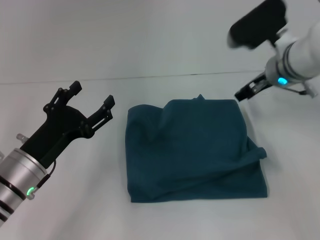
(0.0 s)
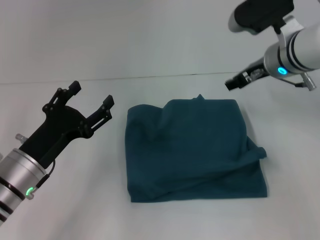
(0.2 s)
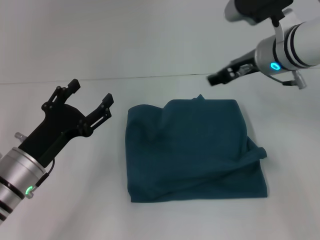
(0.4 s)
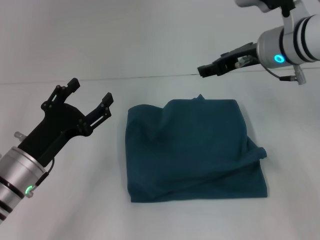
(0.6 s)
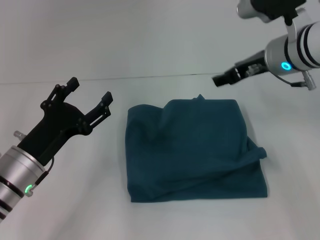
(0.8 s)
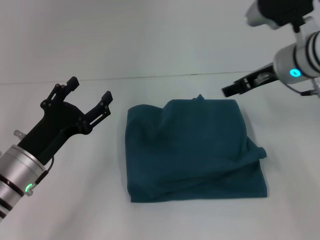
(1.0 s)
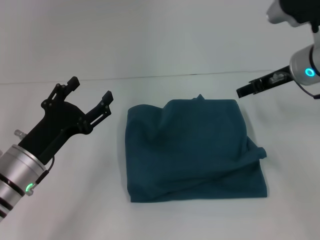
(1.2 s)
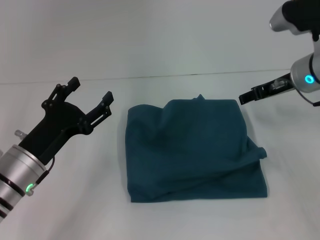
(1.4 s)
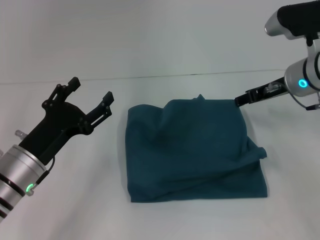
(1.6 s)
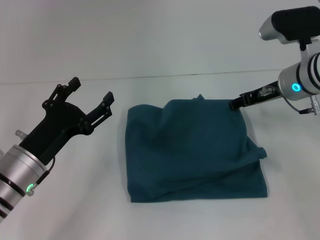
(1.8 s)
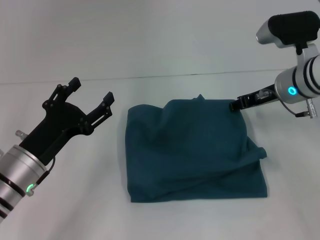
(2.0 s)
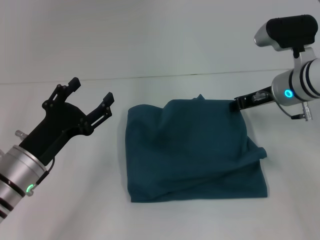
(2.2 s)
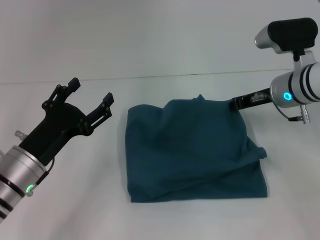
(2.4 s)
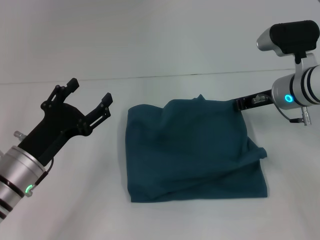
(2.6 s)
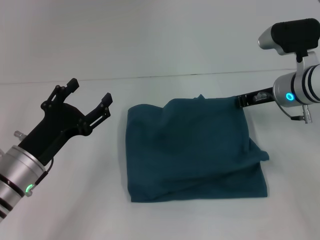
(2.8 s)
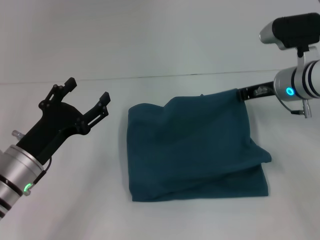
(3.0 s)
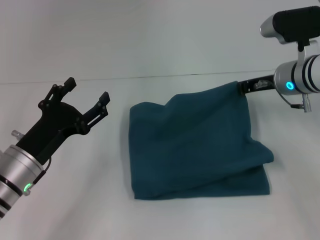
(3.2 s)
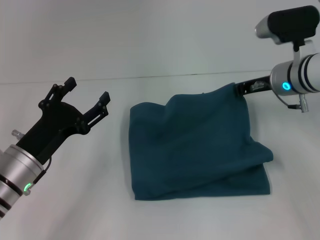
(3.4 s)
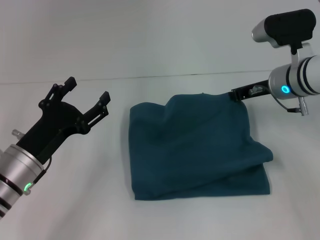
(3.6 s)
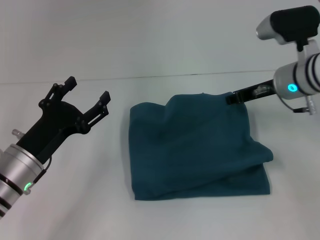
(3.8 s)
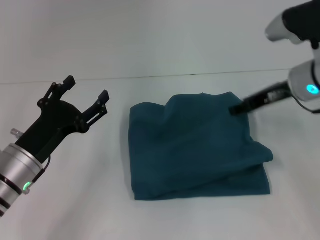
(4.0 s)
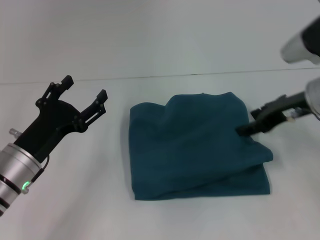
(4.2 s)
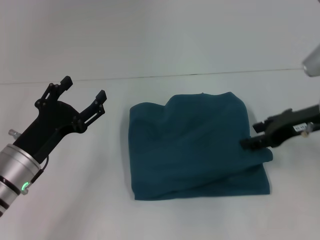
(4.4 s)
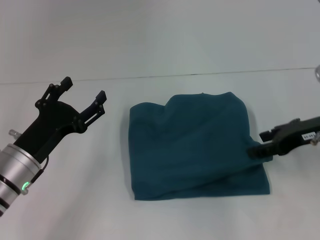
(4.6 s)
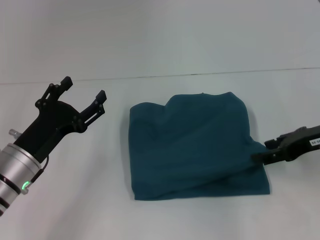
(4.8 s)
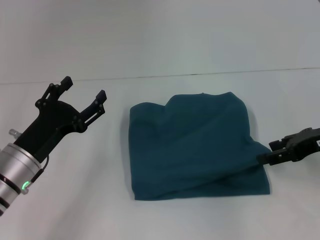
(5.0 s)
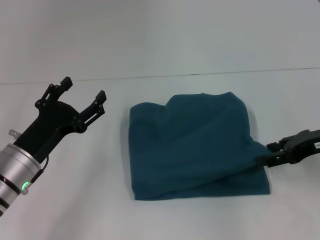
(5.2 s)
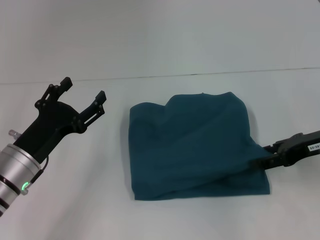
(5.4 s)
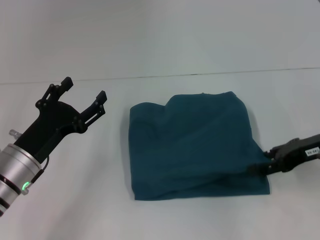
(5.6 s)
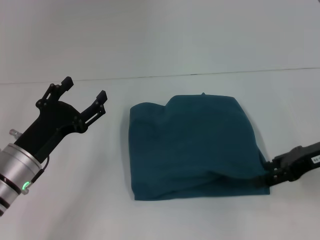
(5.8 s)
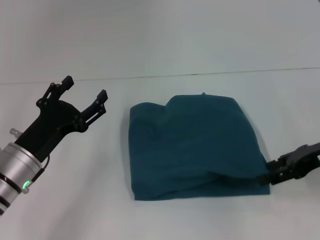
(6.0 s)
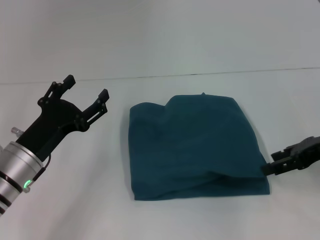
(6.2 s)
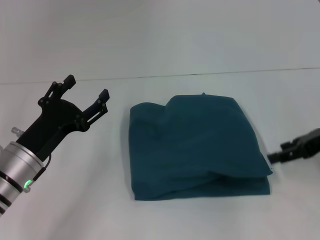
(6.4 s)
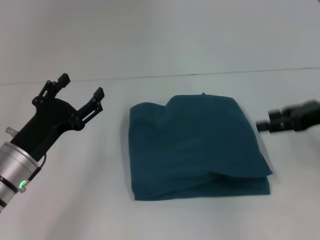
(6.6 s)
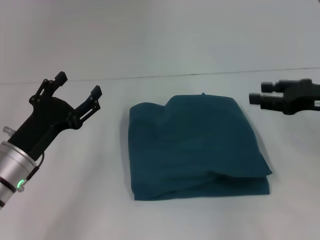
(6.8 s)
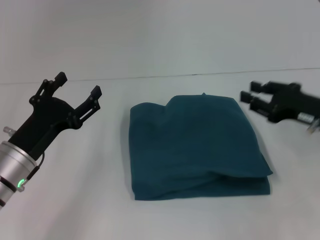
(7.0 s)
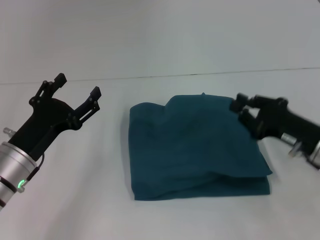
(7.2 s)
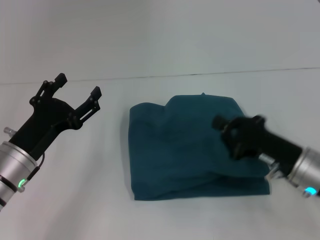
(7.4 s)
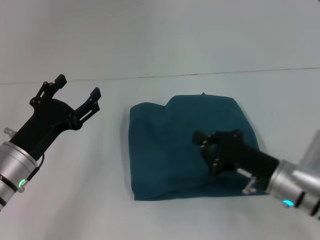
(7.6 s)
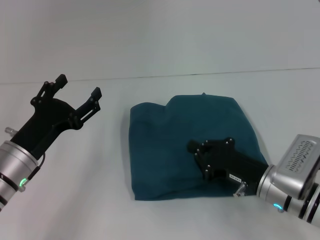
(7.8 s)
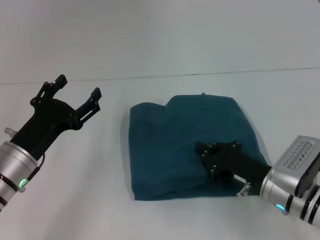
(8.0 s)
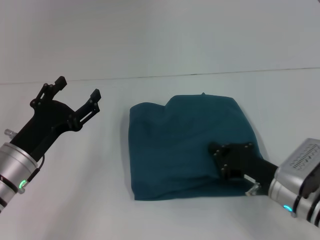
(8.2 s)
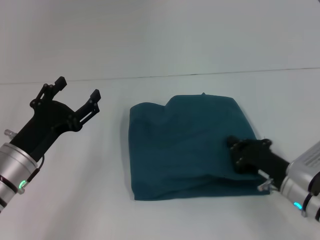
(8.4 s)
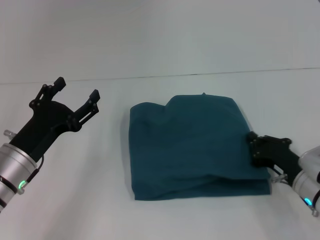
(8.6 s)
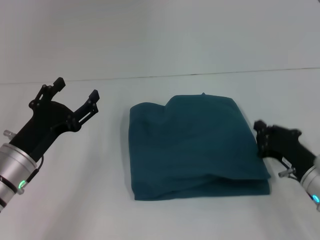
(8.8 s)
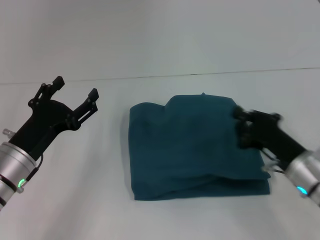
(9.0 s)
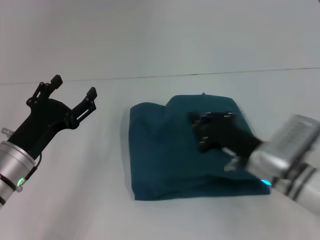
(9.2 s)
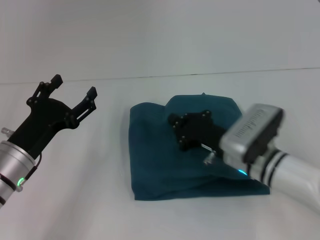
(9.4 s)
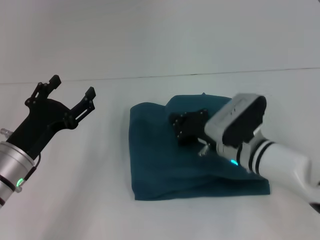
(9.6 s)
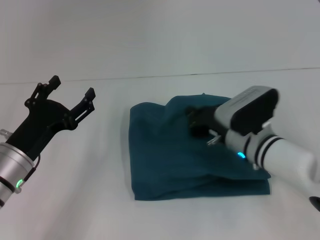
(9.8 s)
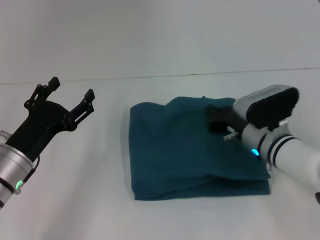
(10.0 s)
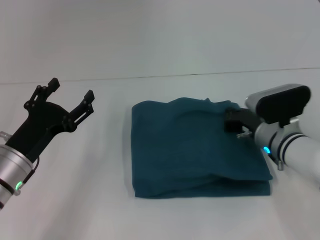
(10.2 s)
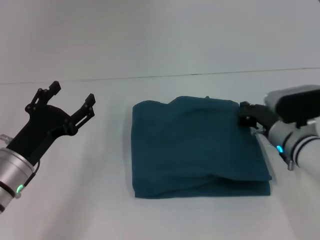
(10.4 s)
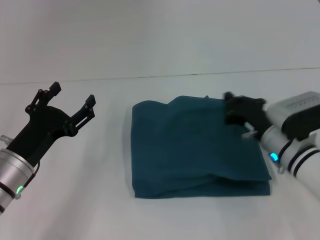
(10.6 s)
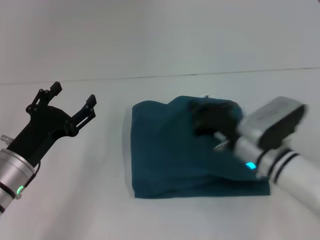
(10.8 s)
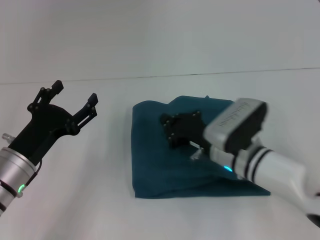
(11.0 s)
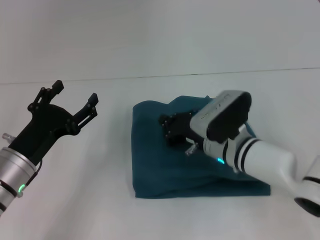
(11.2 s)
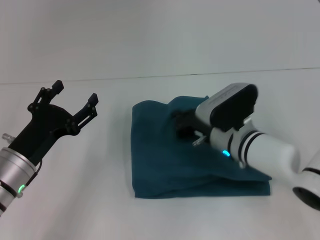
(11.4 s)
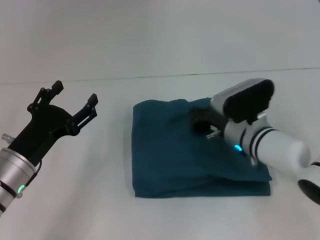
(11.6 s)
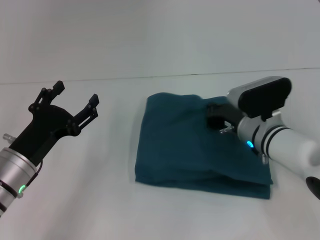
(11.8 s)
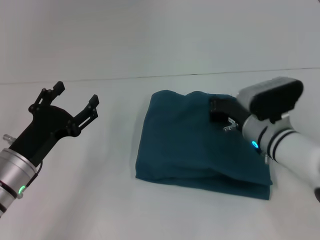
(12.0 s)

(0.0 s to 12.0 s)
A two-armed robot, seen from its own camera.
1.6 s - 3.0 s: The right gripper closes up.
3.0 s - 4.4 s: The right gripper moves backward, some 10 cm, and opens up.
4.4 s - 6.0 s: The grippers move only a little.
6.0 s - 7.6 s: The right gripper heads downward, to the left and backward, covering about 15 cm, and closes.
9.0 s - 10.4 s: The right gripper heads forward, covering about 10 cm, and travels to the left and back again, approximately 10 cm each way.

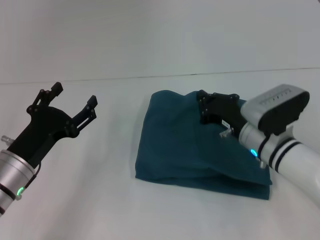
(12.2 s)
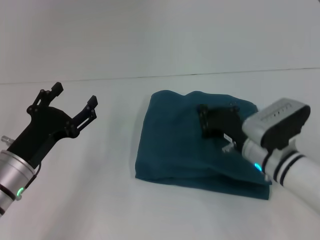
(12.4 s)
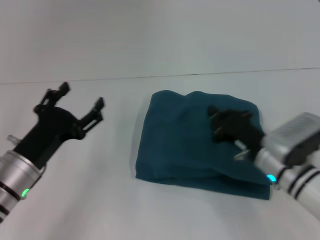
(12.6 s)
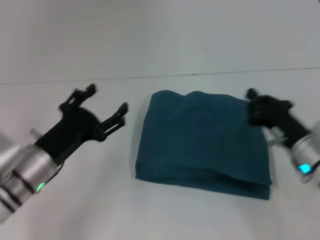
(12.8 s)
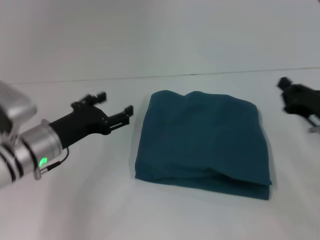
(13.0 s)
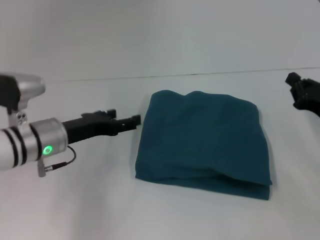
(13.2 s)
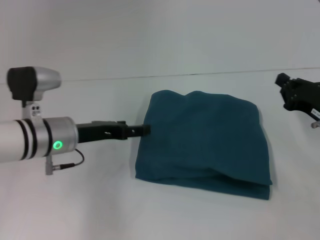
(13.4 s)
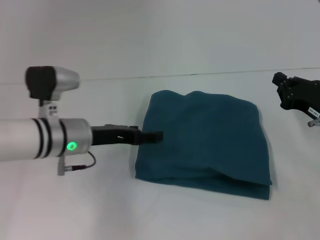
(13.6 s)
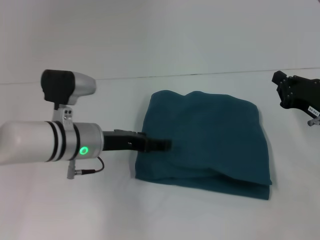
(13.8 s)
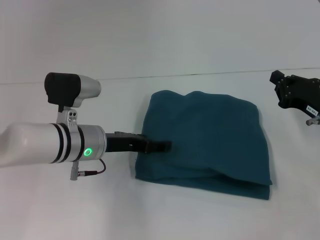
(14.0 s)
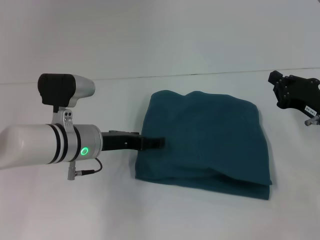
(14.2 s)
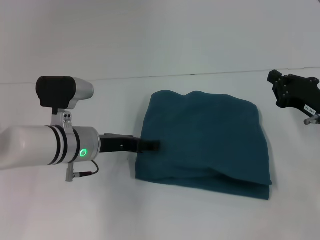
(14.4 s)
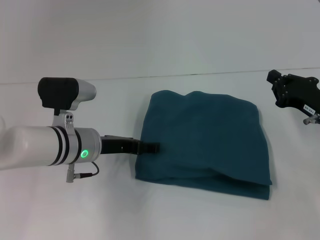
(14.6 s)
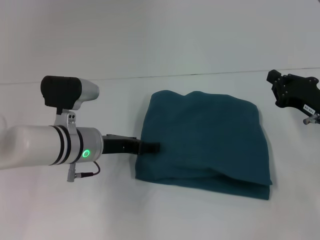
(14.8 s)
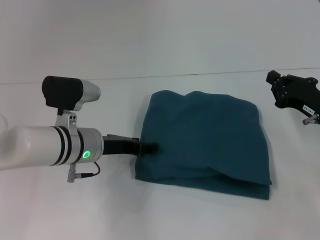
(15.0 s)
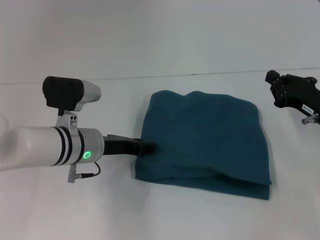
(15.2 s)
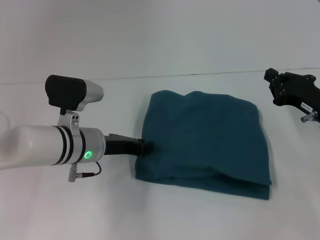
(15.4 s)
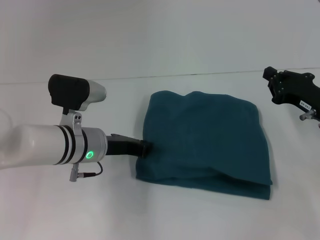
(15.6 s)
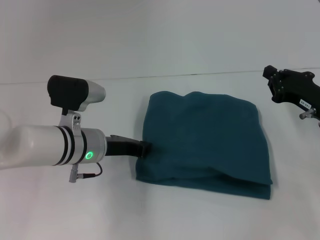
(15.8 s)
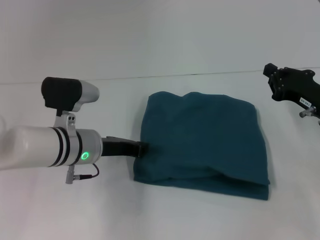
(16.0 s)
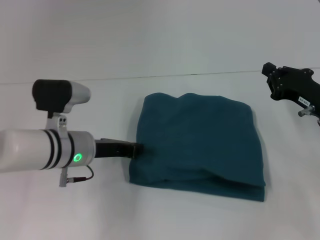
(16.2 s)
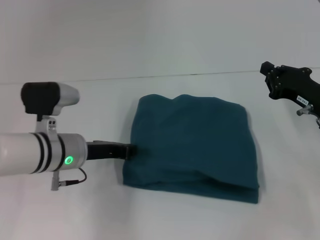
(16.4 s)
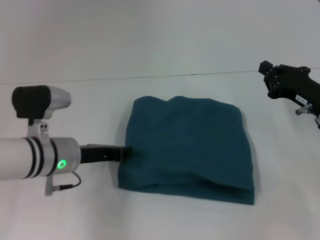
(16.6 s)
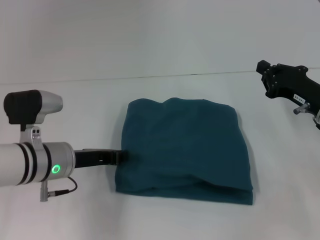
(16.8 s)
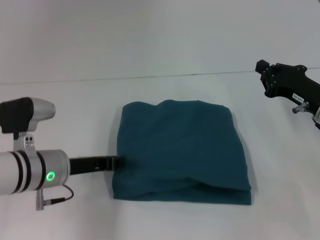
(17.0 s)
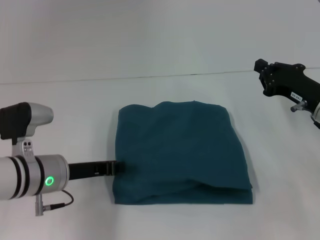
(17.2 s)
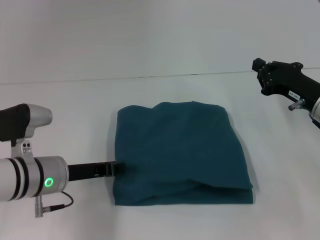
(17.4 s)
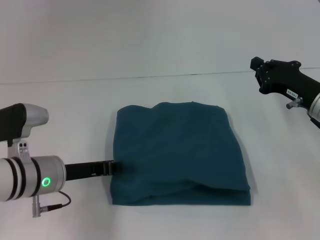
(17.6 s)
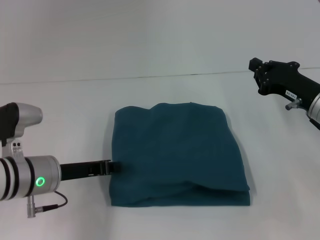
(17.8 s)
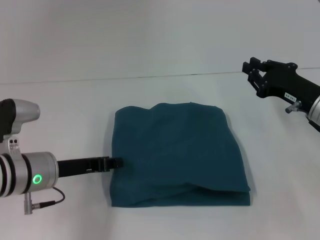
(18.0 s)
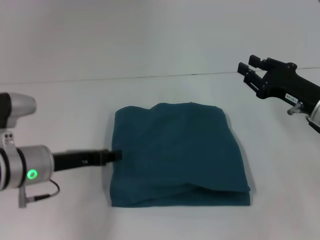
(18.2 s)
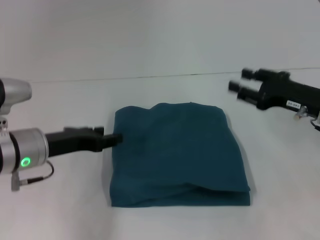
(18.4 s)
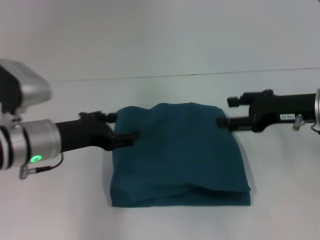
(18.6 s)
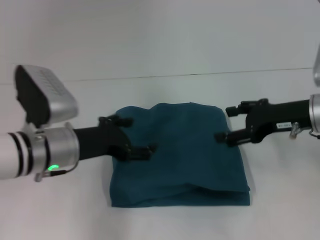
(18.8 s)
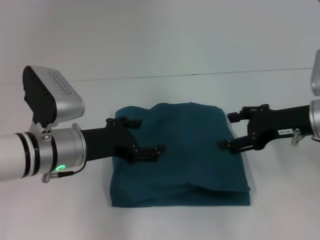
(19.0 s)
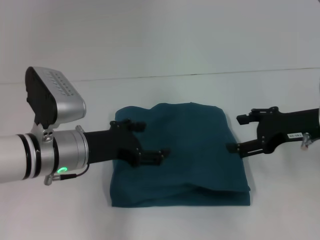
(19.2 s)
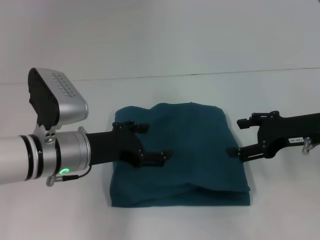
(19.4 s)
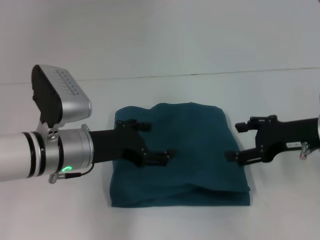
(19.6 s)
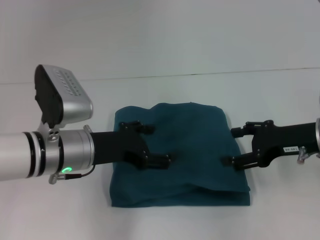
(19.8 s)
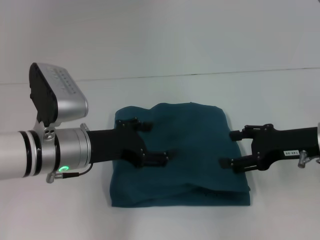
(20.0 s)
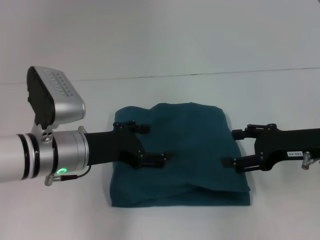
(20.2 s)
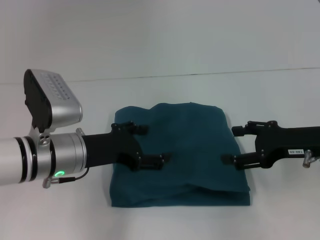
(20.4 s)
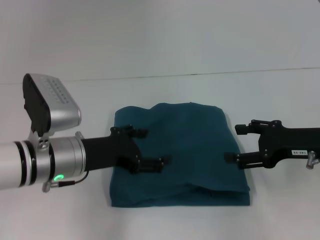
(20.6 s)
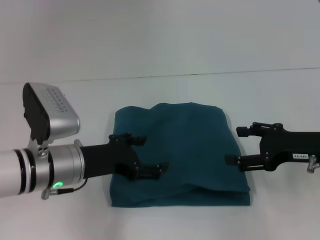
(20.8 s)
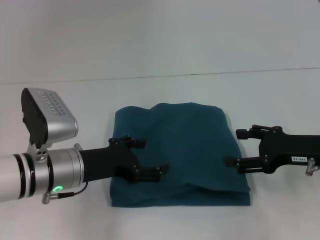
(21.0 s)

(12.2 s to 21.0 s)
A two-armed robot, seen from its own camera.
12.2 s - 13.6 s: The left gripper shifts approximately 10 cm forward and to the right. The right gripper moves to the right, approximately 15 cm.
13.6 s - 15.2 s: The grippers move only a little.
15.2 s - 16.6 s: The left gripper closes its fingers.
18.0 s - 19.6 s: The right gripper opens up. Meanwhile the left gripper travels to the right by roughly 5 cm, and opens.
19.6 s - 21.0 s: The grippers move only a little.
